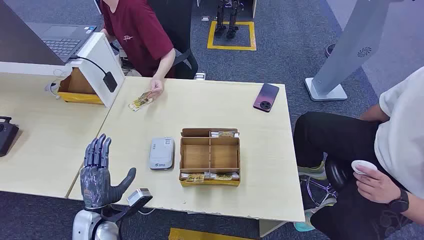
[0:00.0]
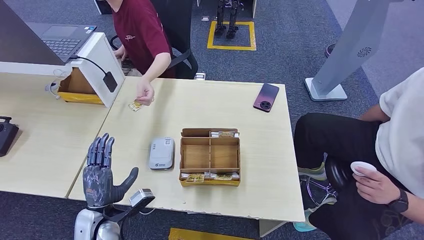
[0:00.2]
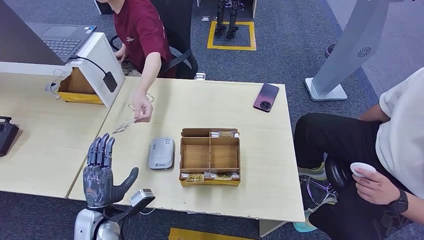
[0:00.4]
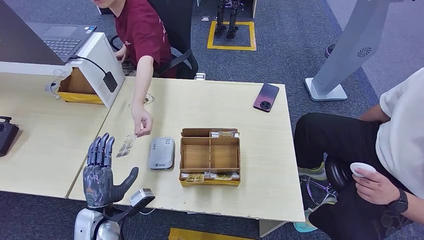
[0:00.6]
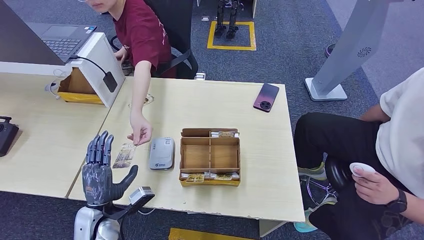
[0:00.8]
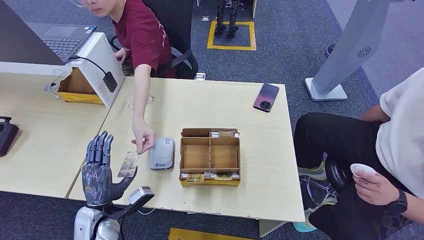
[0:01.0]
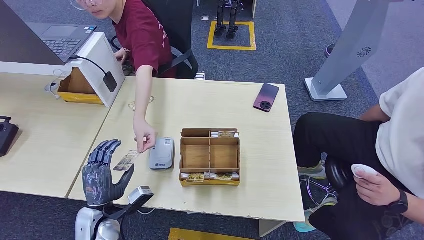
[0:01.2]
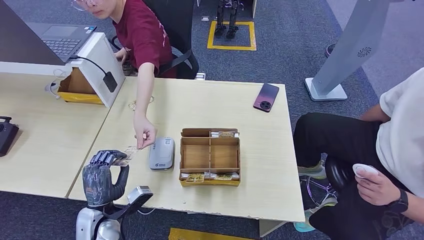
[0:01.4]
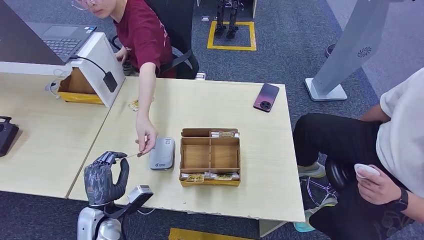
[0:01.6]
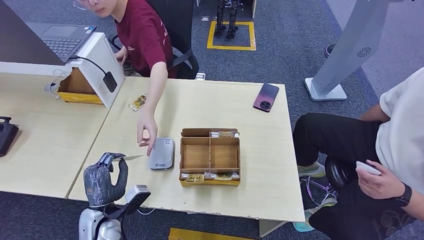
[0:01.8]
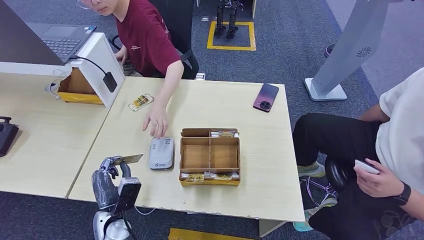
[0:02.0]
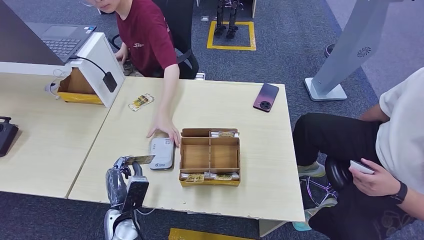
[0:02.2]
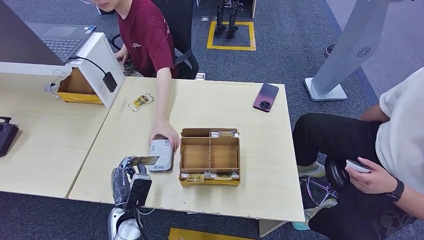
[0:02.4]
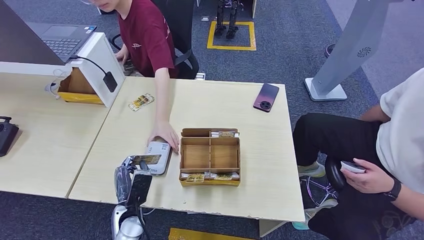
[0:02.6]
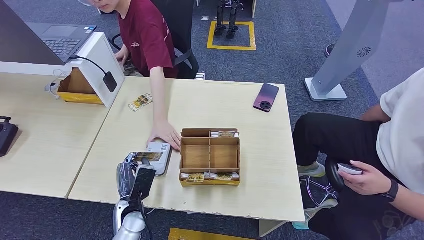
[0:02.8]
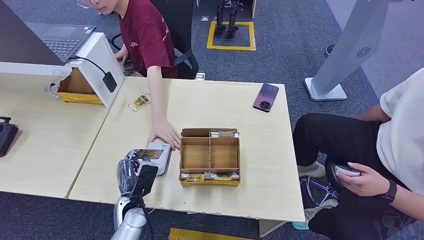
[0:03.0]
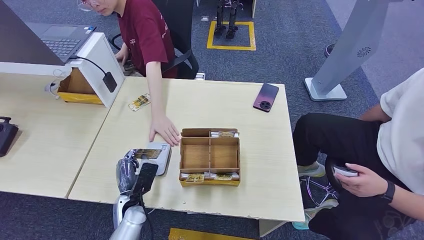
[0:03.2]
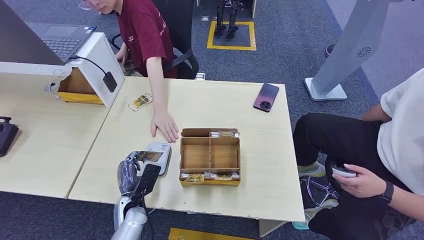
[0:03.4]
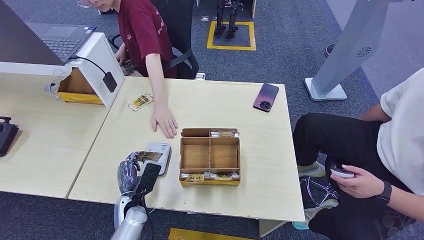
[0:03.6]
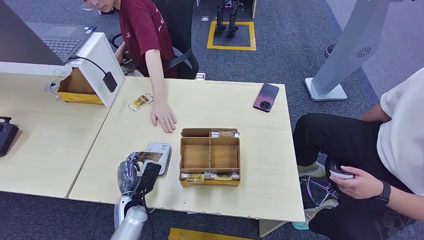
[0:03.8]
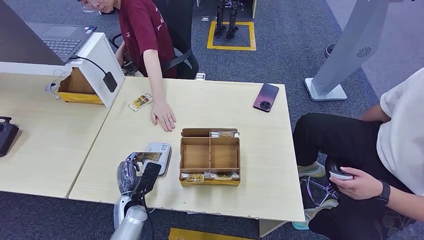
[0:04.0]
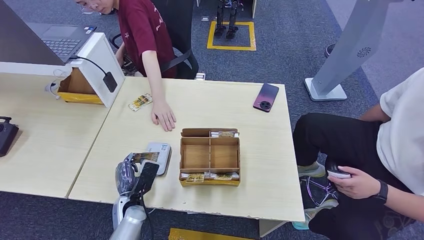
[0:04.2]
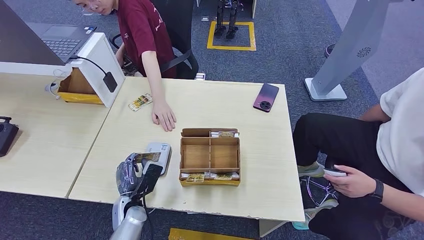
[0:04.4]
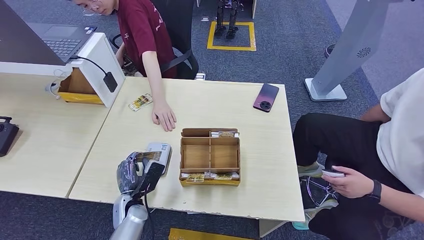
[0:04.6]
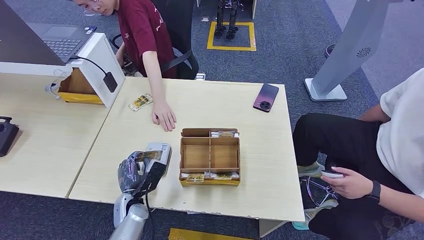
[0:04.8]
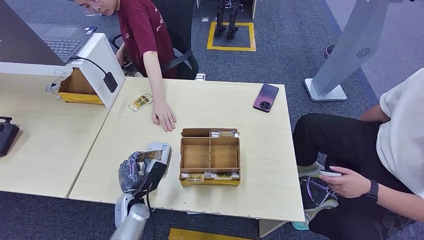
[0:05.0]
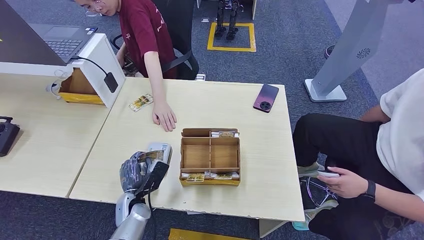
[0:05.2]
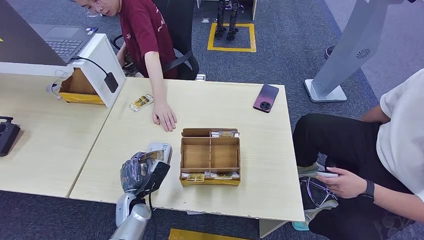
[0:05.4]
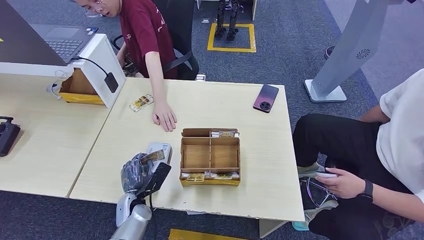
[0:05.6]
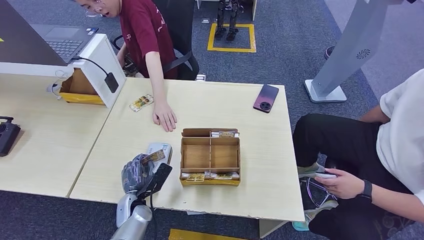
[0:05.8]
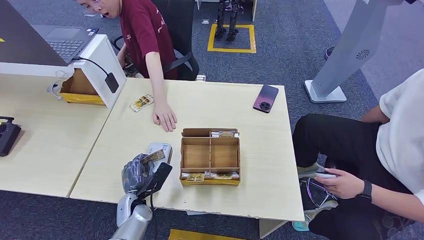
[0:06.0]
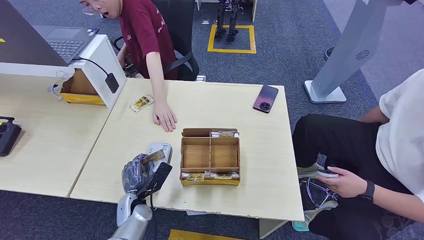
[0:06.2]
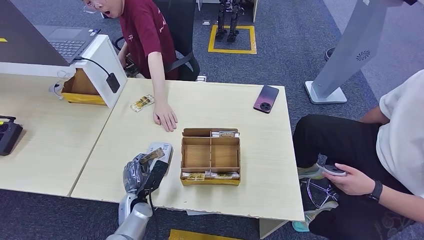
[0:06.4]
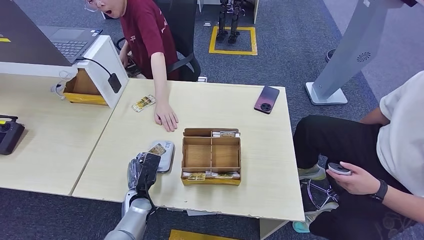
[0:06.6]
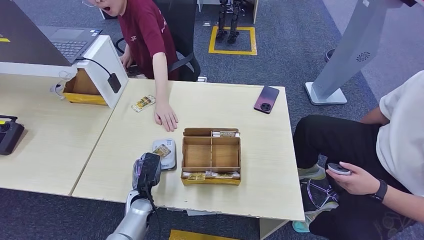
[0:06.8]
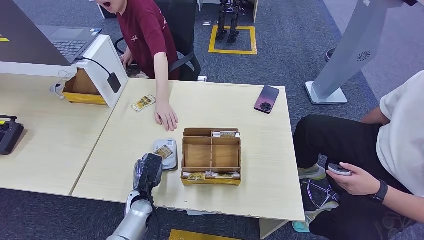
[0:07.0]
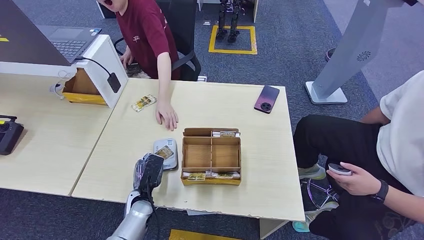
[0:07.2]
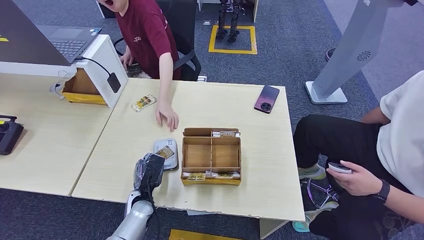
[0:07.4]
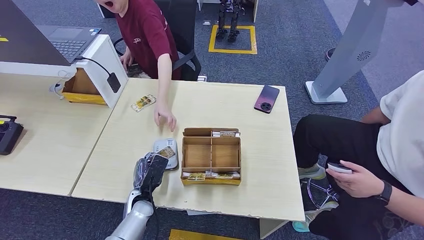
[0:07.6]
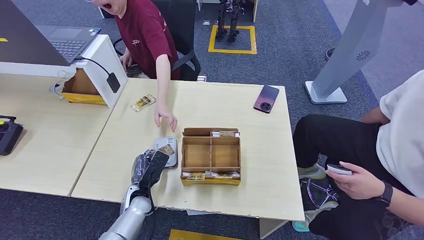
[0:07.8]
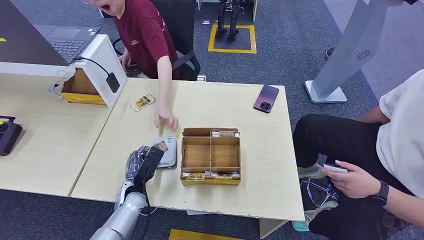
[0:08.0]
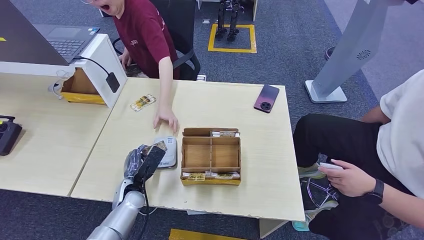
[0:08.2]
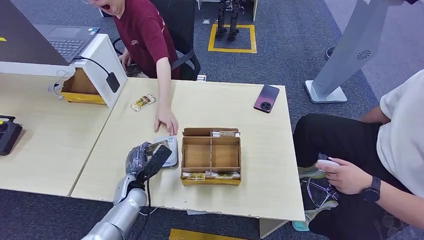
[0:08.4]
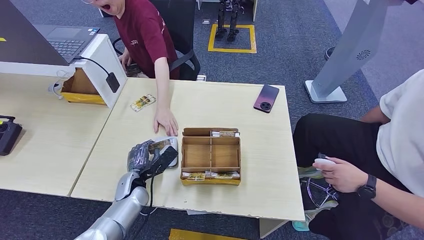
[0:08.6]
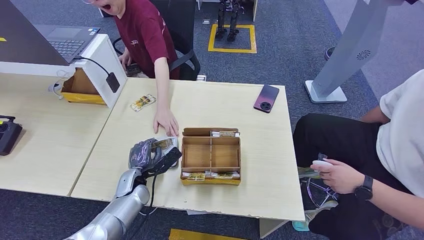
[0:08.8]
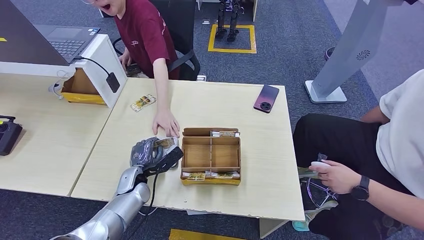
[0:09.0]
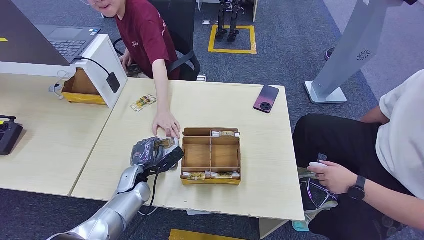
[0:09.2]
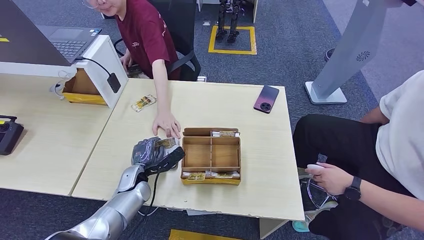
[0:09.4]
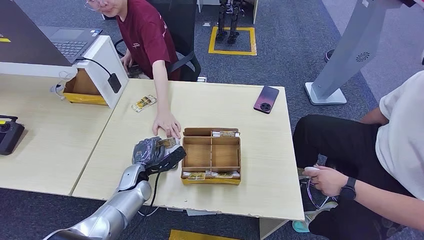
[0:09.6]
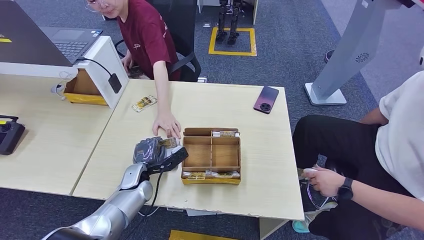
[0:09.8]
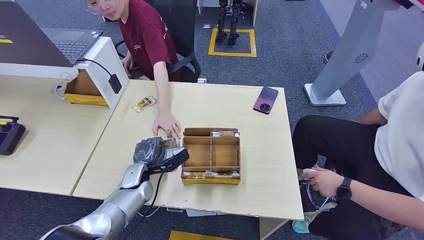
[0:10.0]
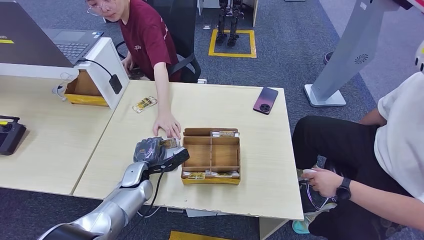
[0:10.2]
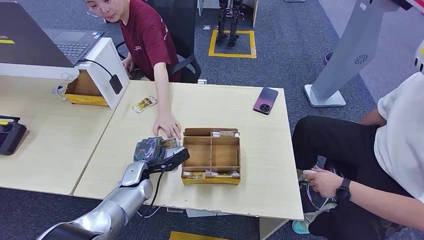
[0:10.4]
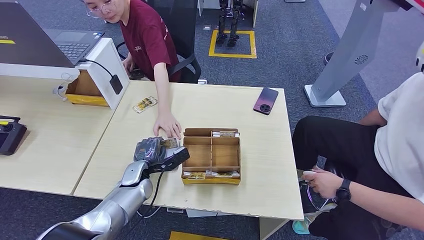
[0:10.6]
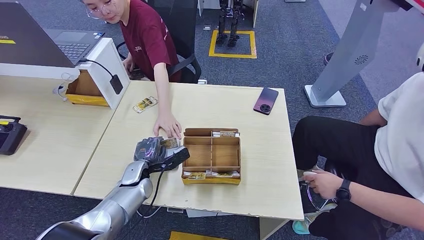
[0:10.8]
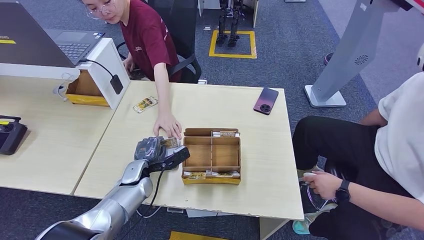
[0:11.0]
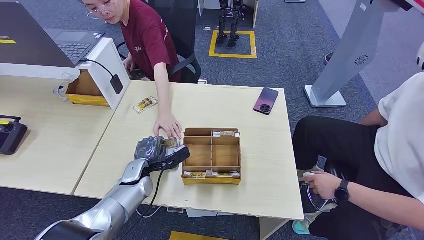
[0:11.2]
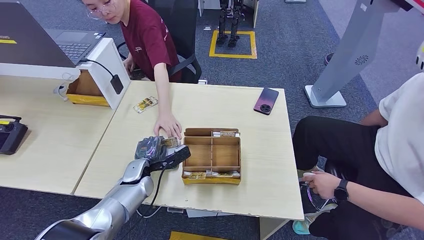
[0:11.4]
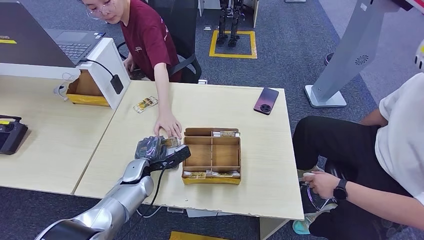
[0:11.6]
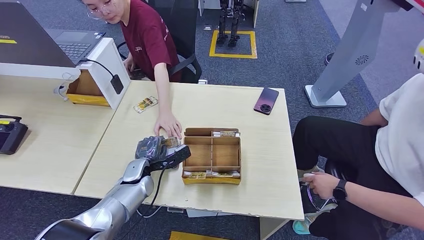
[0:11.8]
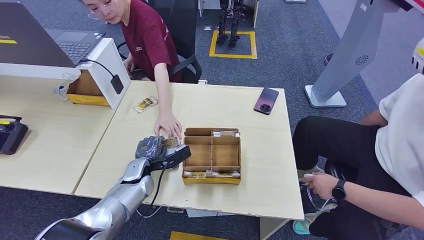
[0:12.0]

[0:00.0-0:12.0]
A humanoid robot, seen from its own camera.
Step, 0:00.0 to 0:02.4: Take the ID card from the person's hand.
Step, 0:02.6 to 0:05.8: Place the ID card on the card reader.
0:01.6 to 0:03.0: The left hand shifts approximately 5 cm to the right.
0:03.0 to 0:04.4: The hands make only small movements.
0:04.4 to 0:06.0: The hands stay close to where they were, moving slightly.
0:07.6 to 0:09.0: The left hand moves forward, approximately 5 cm.
0:09.0 to 0:10.4: The hands make only small movements.
0:10.4 to 0:12.0: Neither hand changes place.

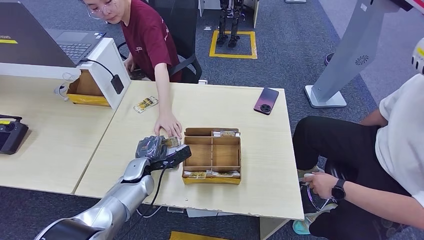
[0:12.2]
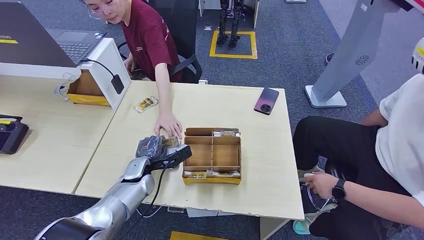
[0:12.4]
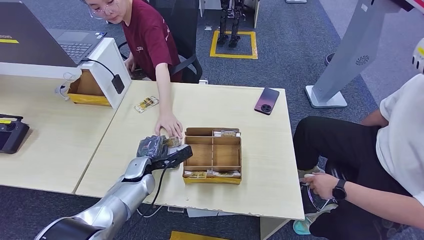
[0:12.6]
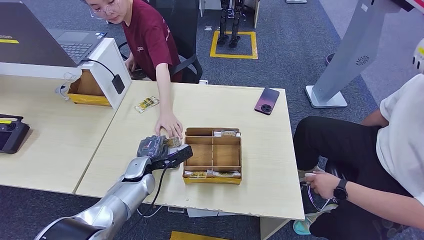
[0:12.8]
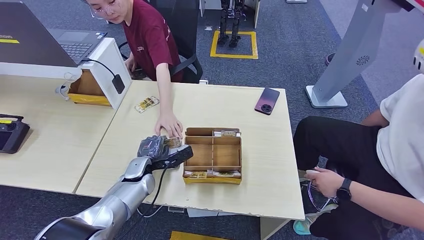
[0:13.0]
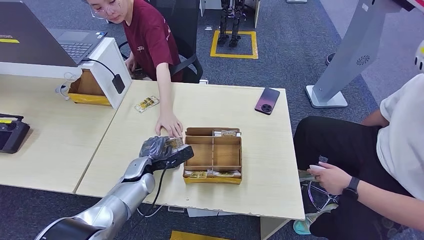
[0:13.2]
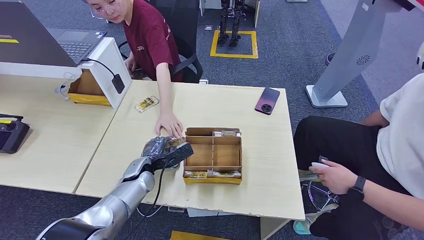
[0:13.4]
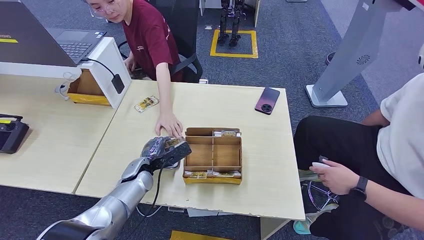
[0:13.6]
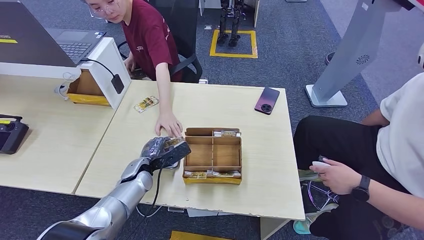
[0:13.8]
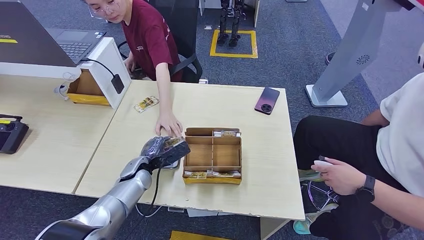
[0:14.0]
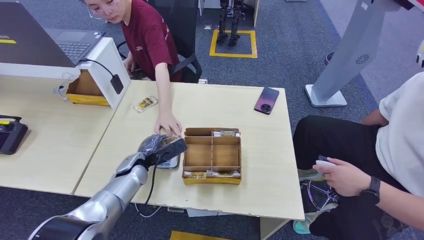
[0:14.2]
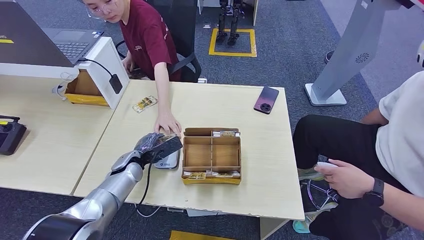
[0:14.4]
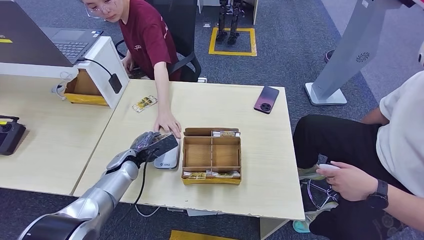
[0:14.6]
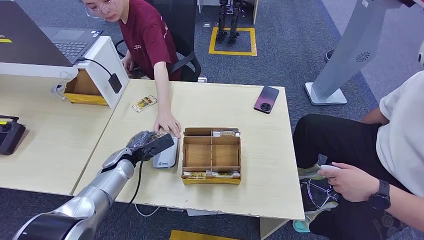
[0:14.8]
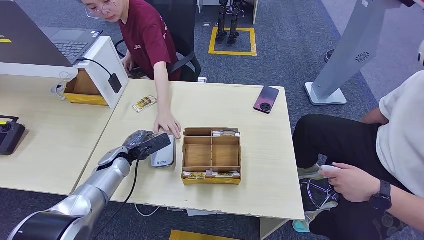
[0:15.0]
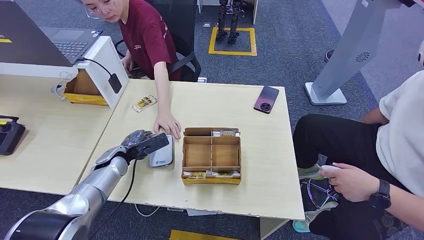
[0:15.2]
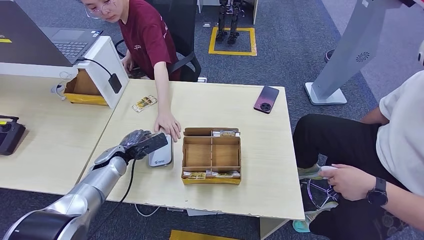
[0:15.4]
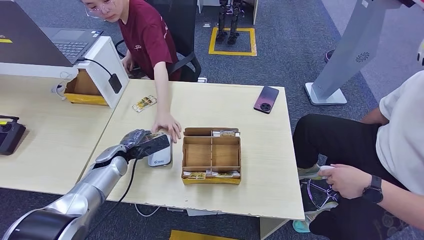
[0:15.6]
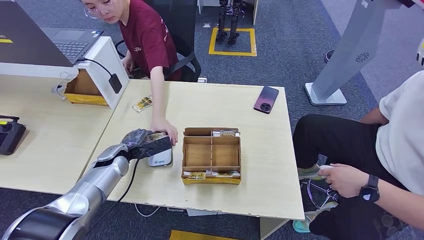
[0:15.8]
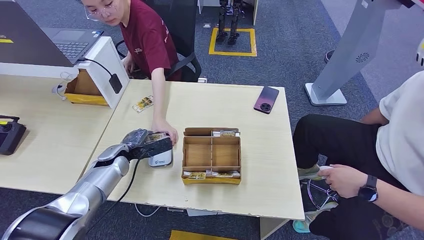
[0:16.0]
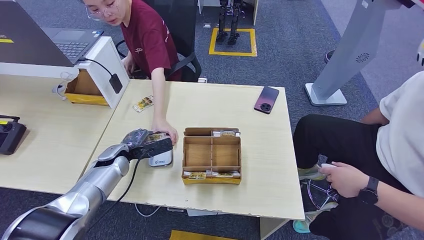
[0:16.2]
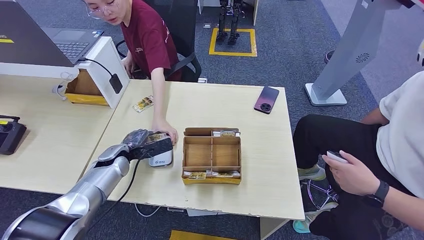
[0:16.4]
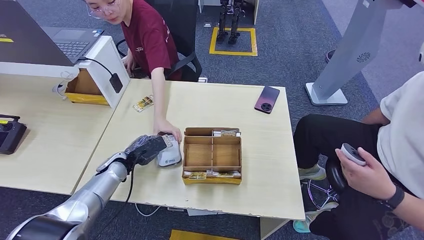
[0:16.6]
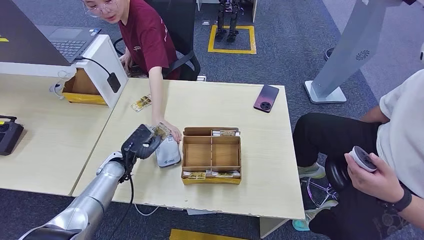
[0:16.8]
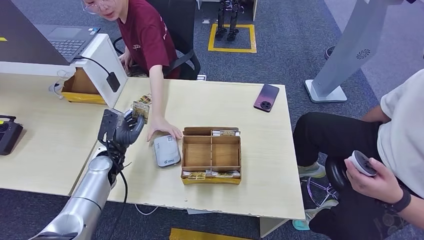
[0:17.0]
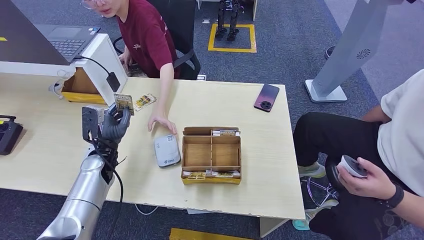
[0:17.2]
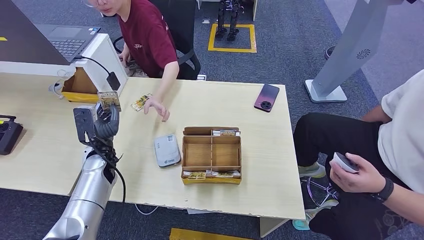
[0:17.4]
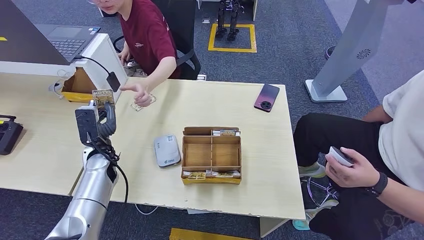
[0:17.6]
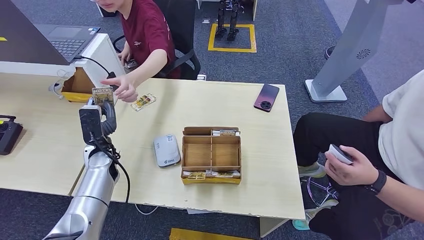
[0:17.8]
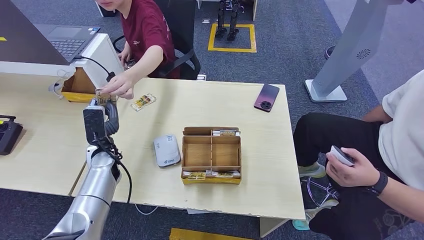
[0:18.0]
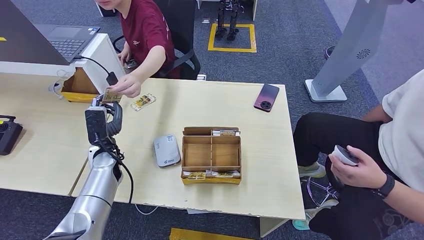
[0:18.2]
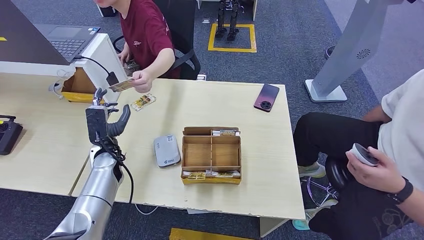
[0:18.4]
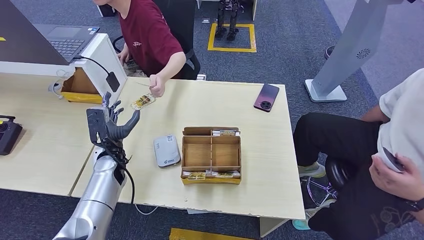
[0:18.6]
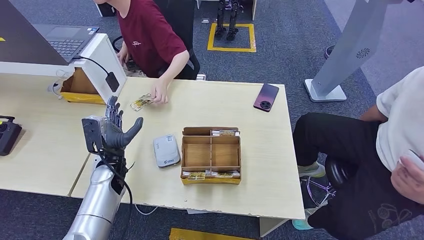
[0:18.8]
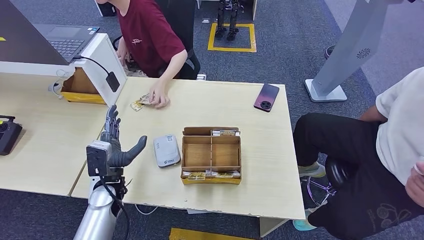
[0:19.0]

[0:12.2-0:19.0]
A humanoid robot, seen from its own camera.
Step, 0:12.2 to 0:18.0: Hand the ID card to the person.
0:12.2 to 0:13.6: The hands move only a little.
0:13.6 to 0:15.0: The left hand is displaced to the left by about 10 cm.
0:15.0 to 0:16.2: The hands move only a little.
0:17.6 to 0:19.0: The left hand goes about 10 cm backward and to the right.
